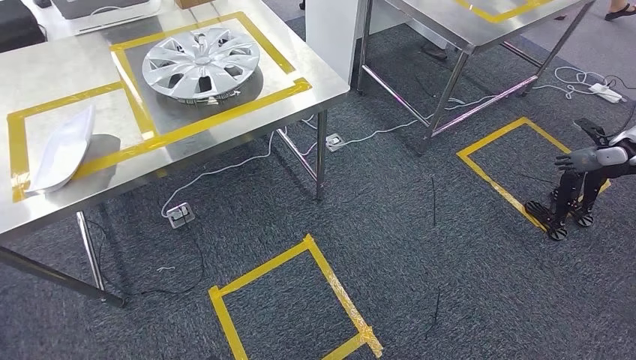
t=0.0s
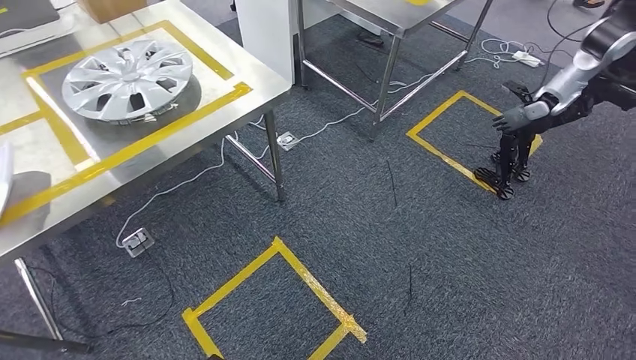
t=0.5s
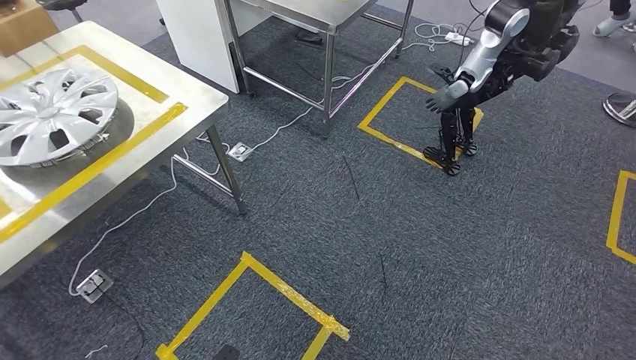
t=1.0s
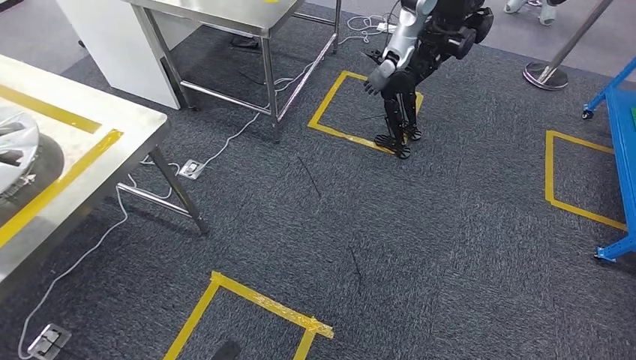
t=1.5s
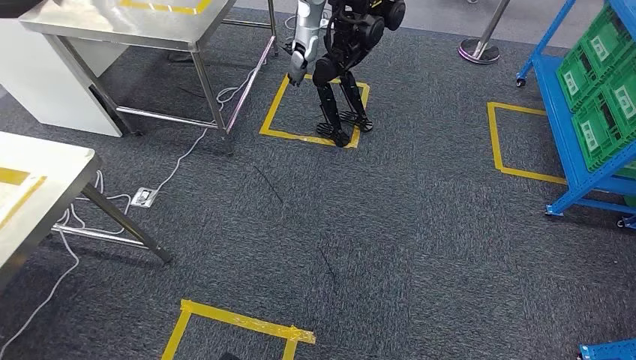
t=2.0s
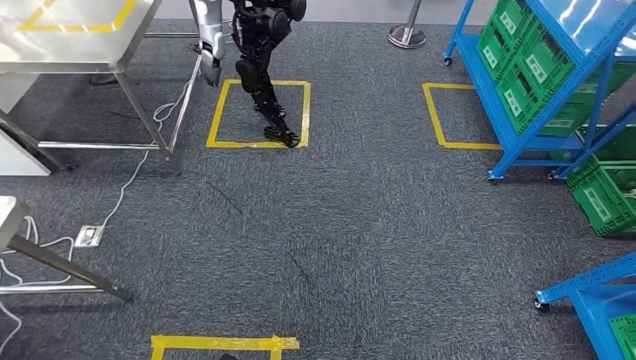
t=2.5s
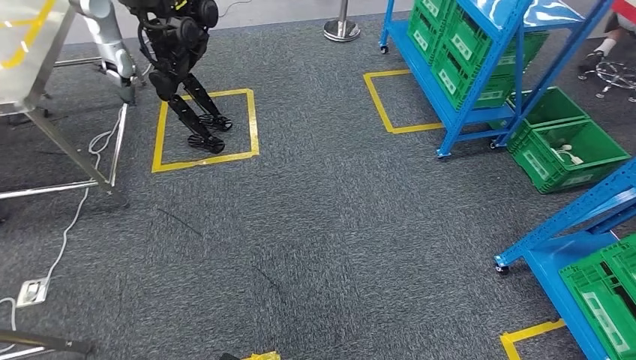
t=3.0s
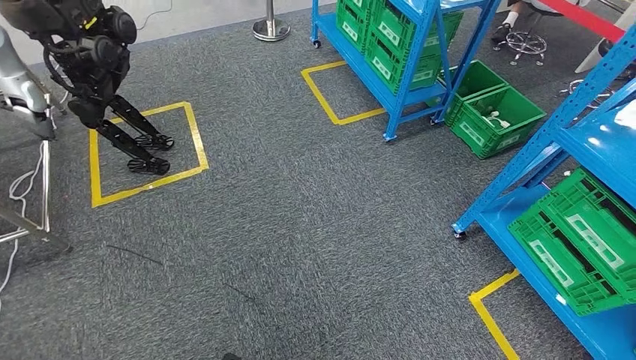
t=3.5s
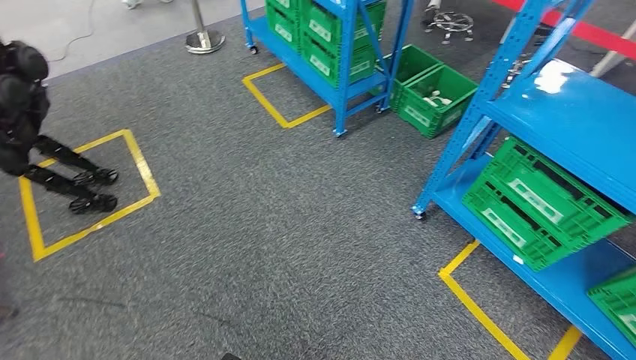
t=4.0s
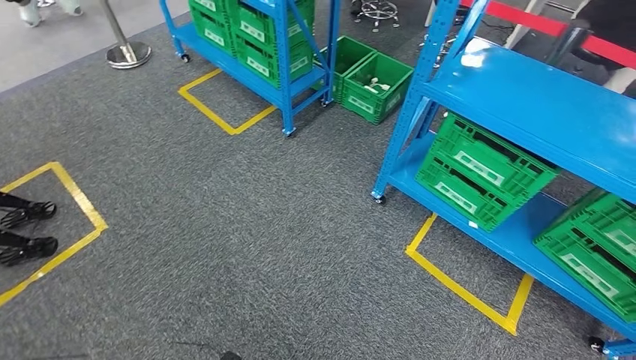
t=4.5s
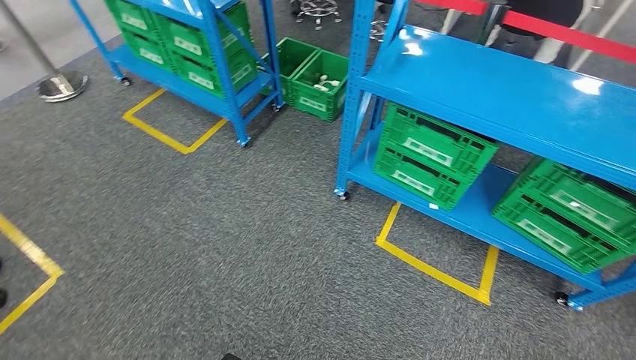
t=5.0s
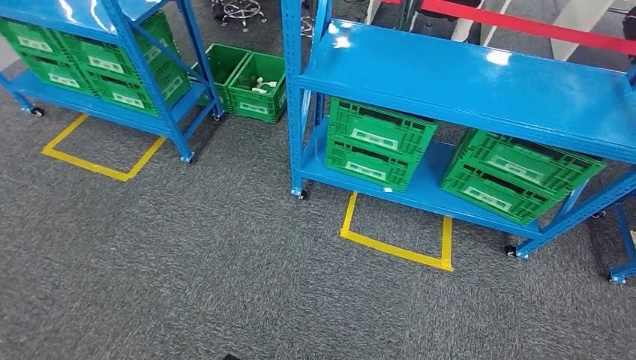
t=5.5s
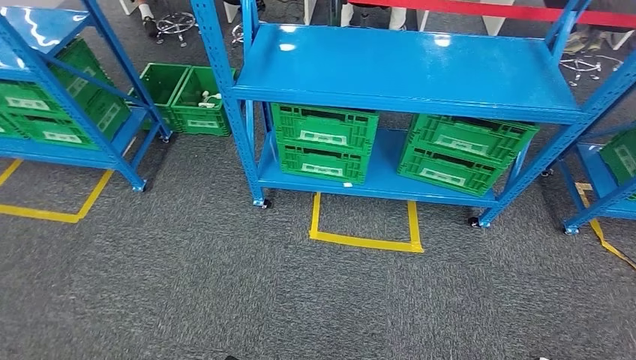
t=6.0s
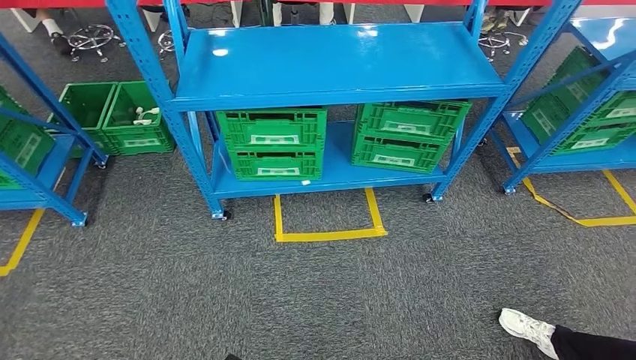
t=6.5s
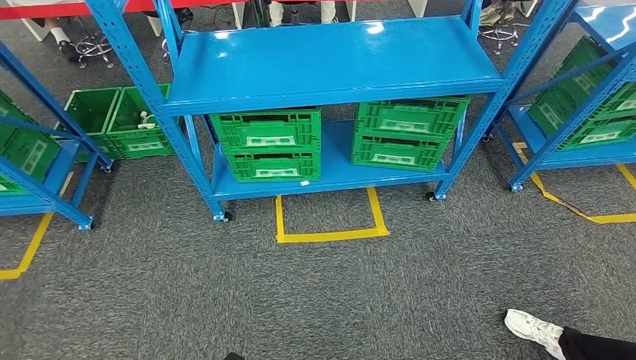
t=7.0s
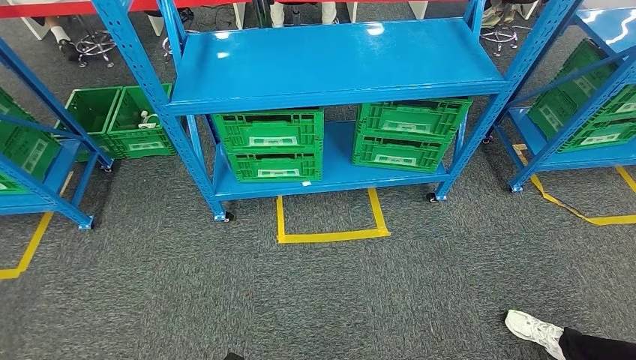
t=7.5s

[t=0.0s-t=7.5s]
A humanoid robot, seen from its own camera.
Step, t=0.0s to t=7.5s: Move to the initial position of the workbench.

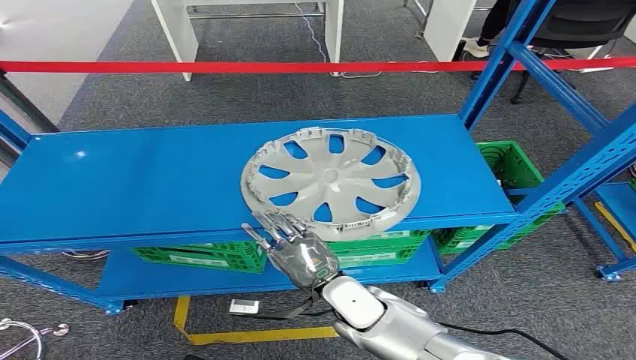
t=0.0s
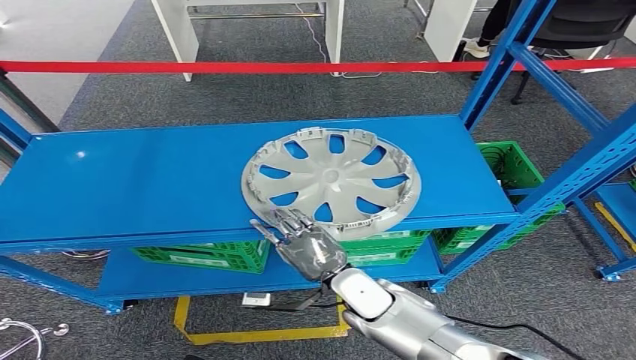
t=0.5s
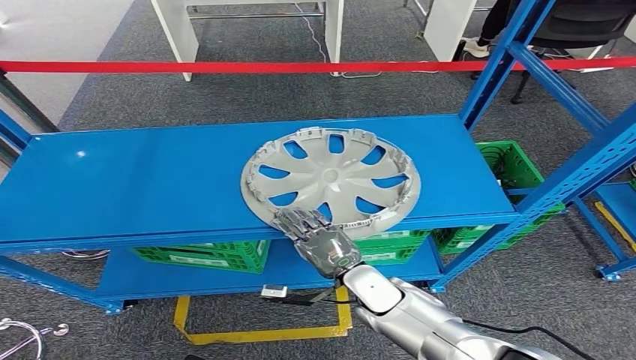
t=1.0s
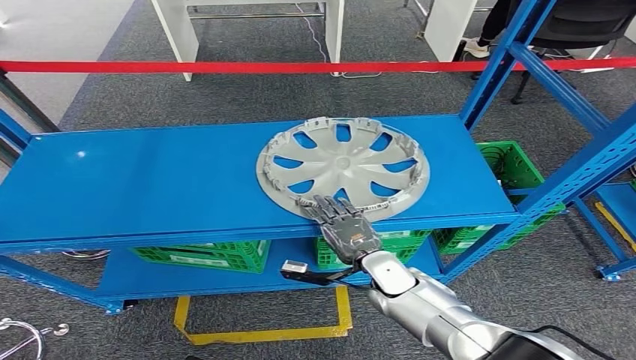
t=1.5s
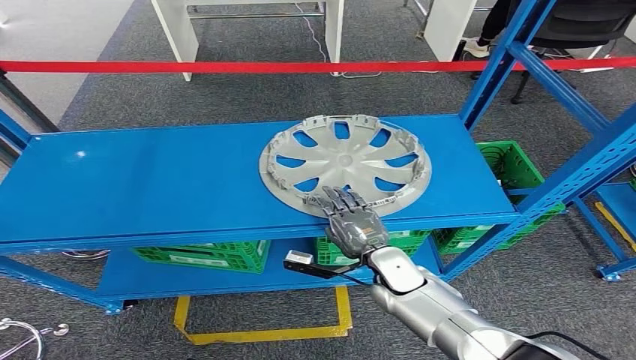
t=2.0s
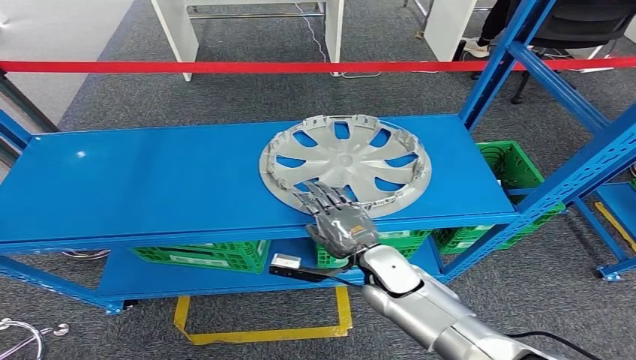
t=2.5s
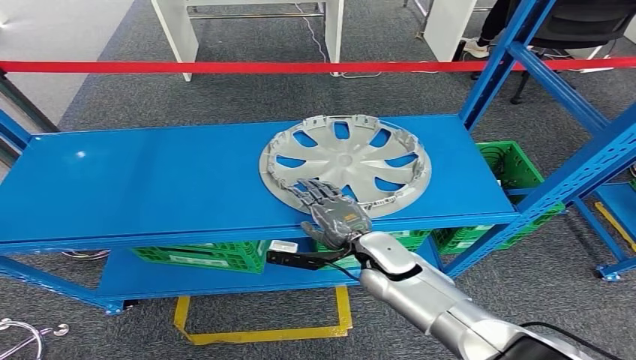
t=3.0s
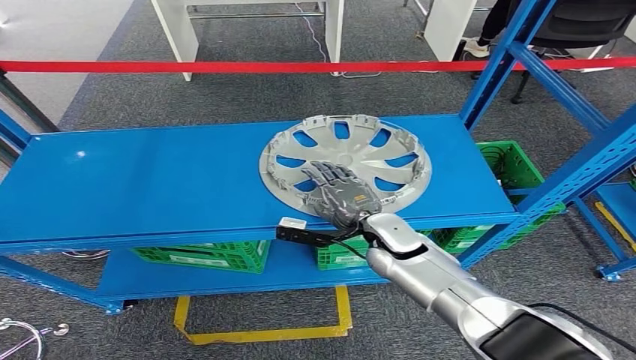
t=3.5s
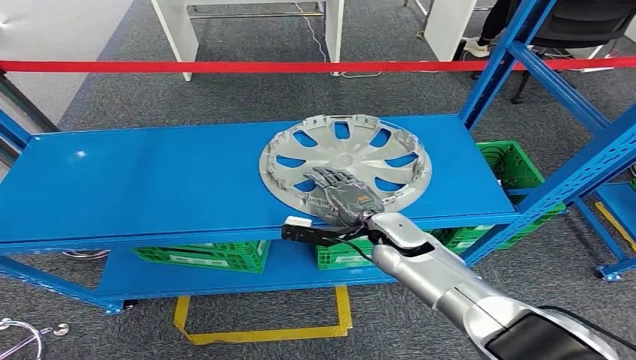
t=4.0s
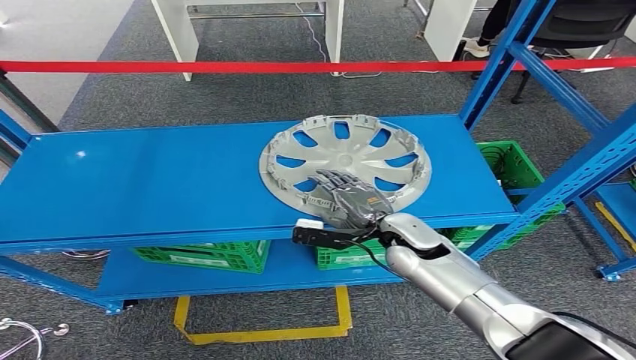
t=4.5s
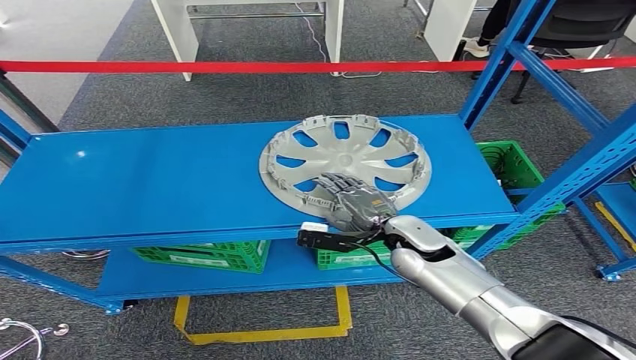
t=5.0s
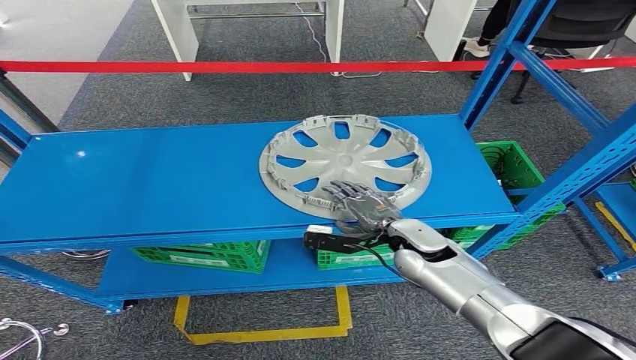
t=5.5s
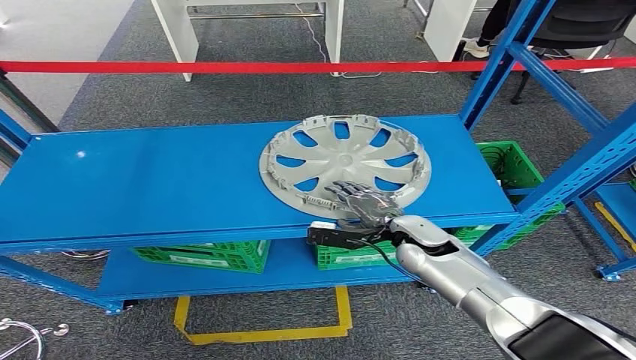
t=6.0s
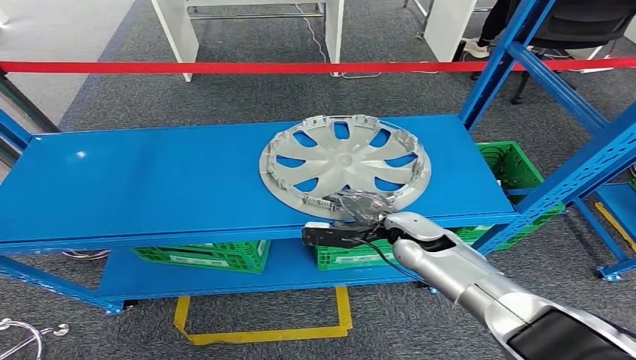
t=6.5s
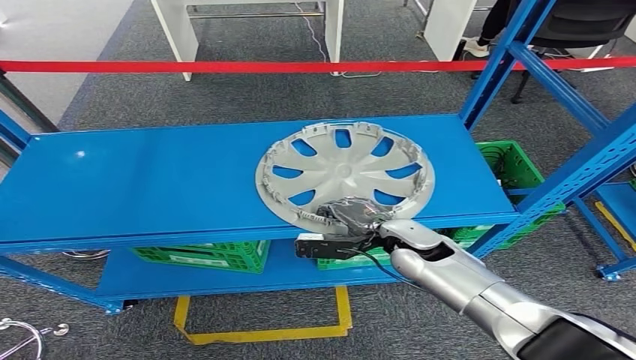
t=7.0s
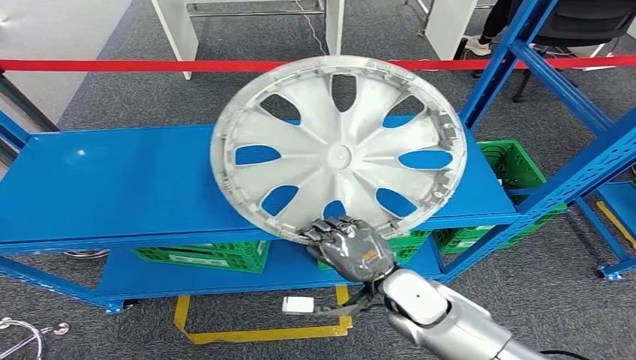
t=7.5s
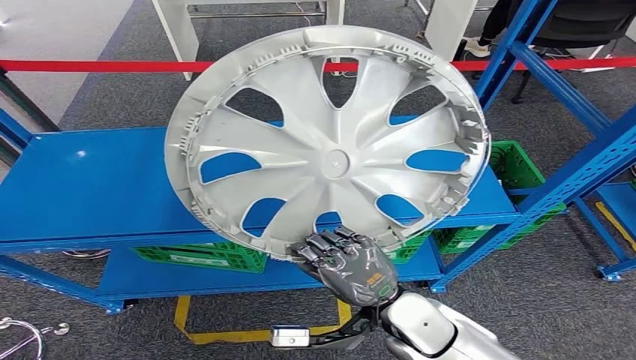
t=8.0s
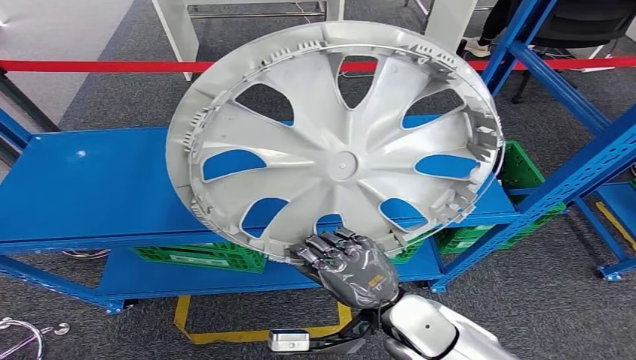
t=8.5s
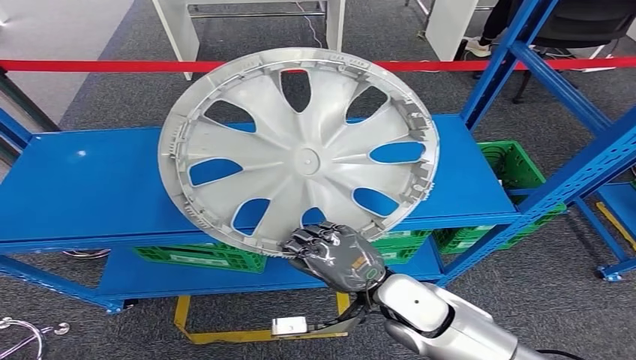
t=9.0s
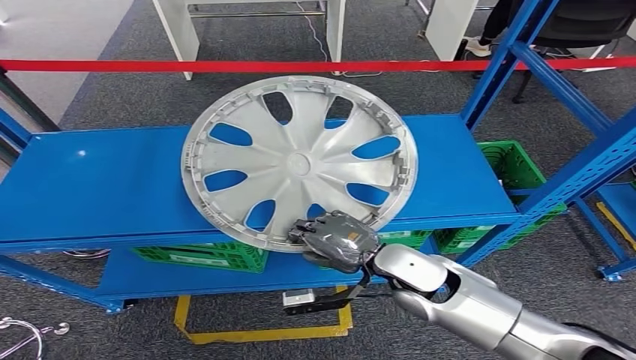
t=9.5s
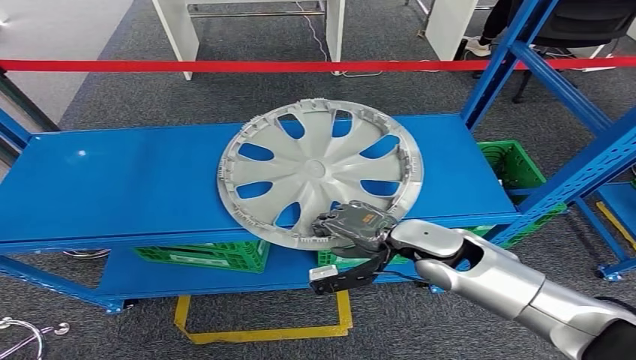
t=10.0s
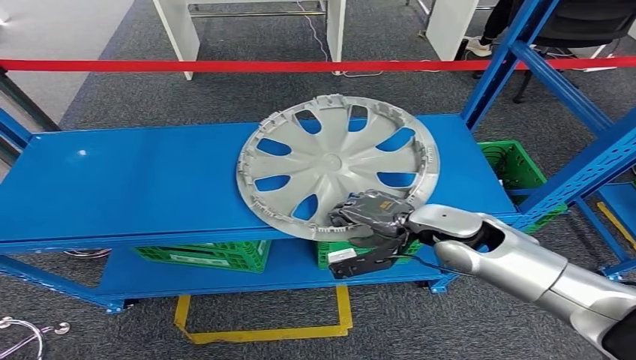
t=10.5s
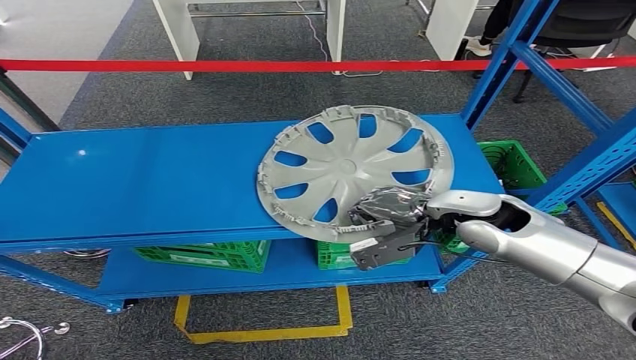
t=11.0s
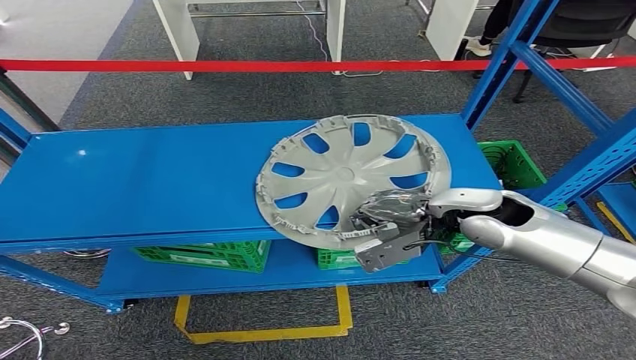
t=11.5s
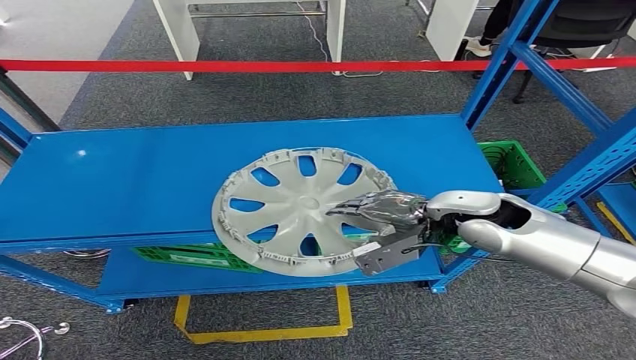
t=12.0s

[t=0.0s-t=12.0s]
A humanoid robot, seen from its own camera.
t=2.0s to t=4.0s: The right hand travels upward and forward by roughly 10 cm.
t=4.0s to t=6.0s: There are only small adjustments of the hands.

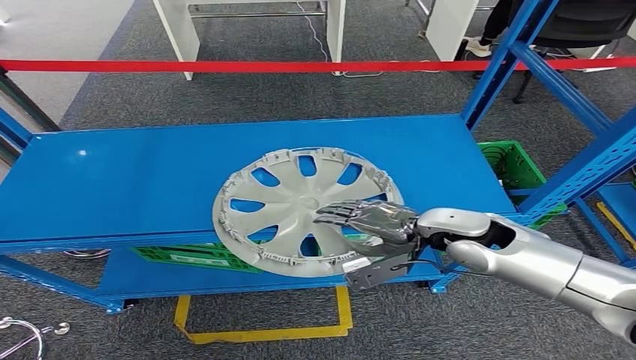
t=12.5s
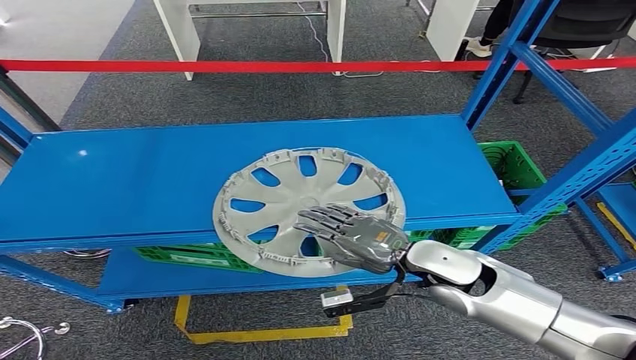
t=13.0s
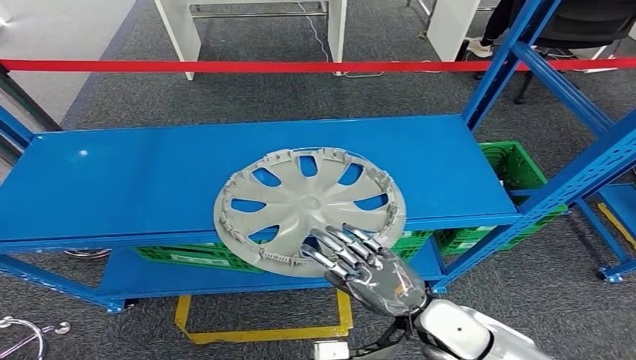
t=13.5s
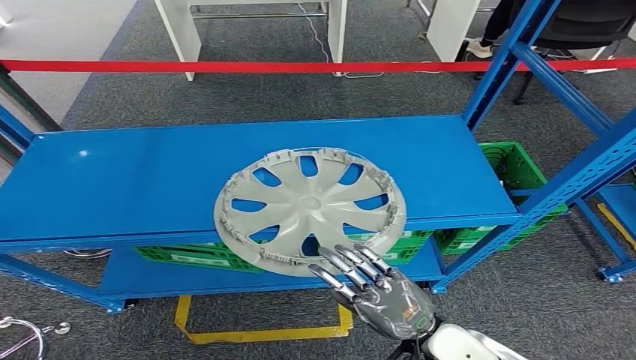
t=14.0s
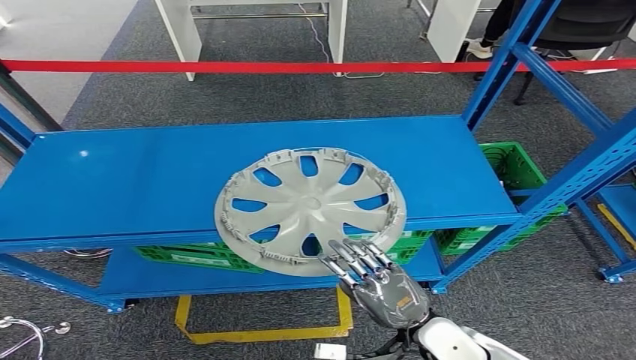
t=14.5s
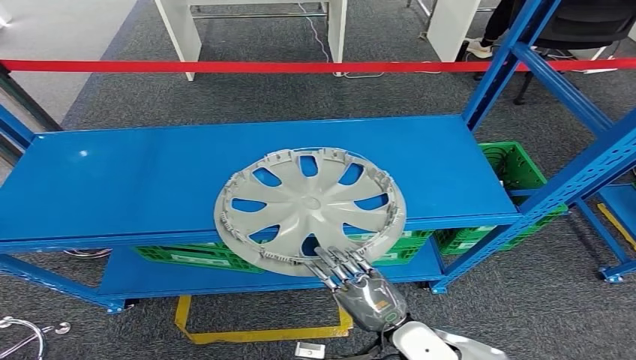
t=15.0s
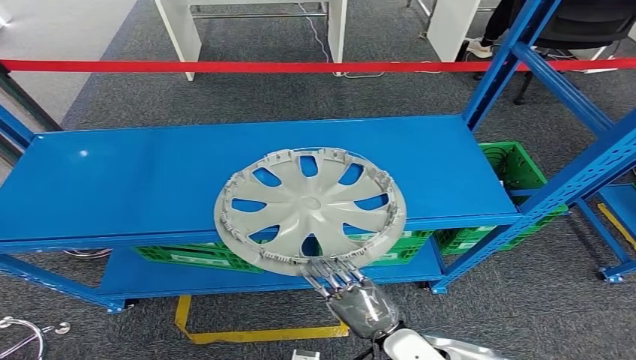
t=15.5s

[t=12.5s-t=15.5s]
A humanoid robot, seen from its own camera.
t=12.5s to t=14.0s: The right hand moves backward and downward, roughly 20 cm.
t=14.0s to t=15.5s: The right hand goes approximately 10 cm downward.
